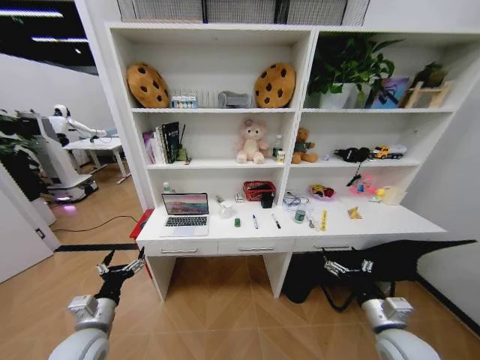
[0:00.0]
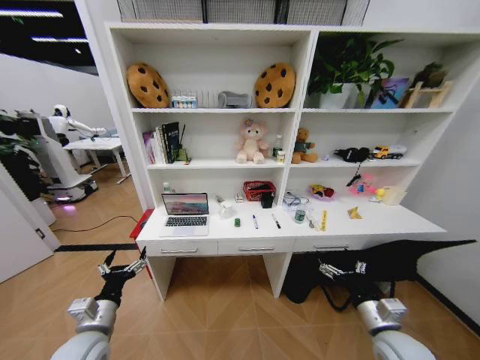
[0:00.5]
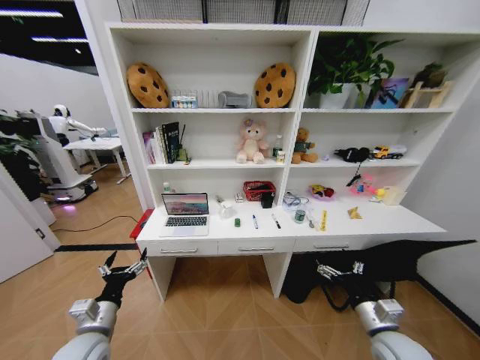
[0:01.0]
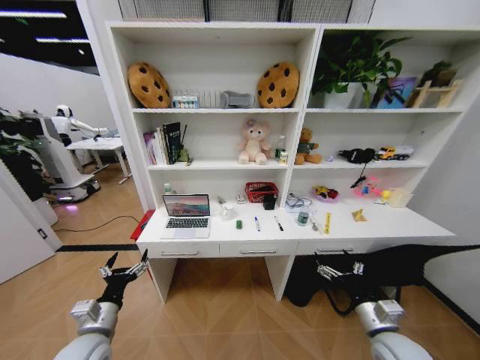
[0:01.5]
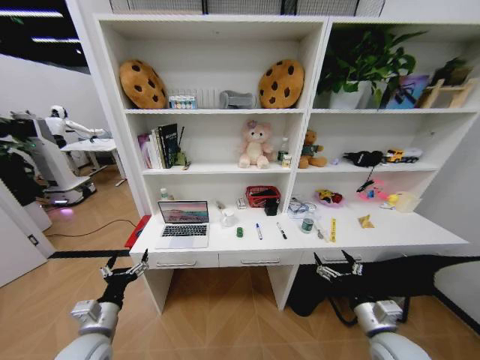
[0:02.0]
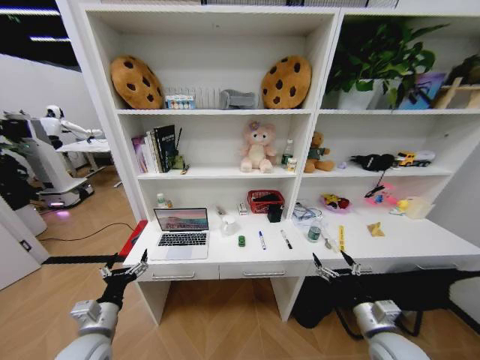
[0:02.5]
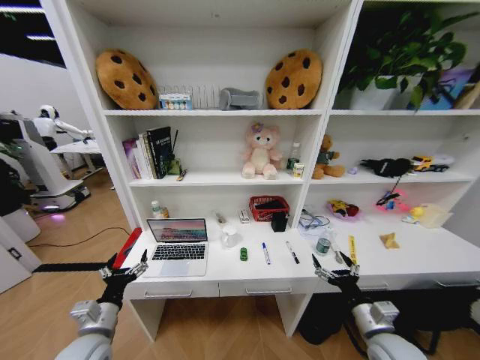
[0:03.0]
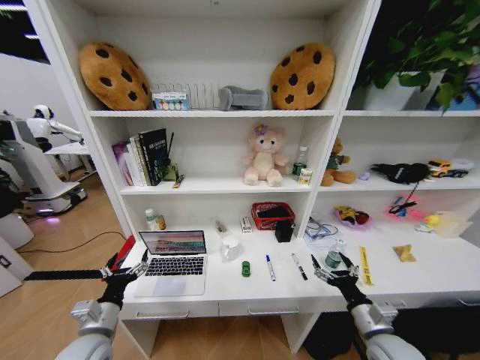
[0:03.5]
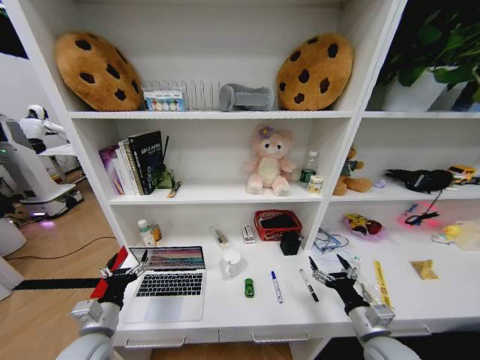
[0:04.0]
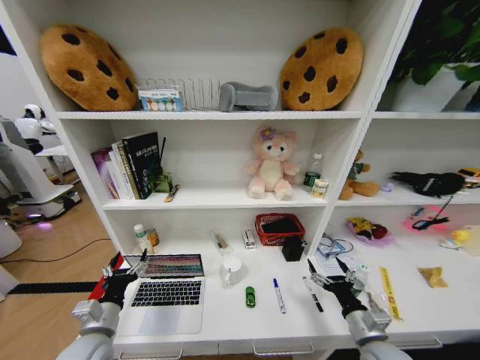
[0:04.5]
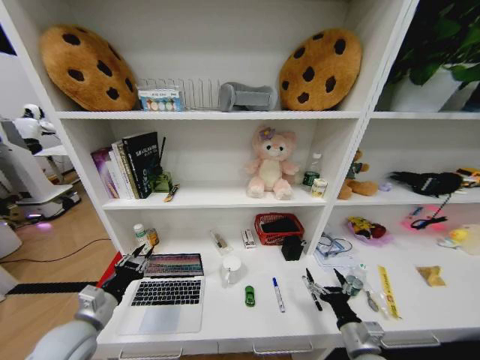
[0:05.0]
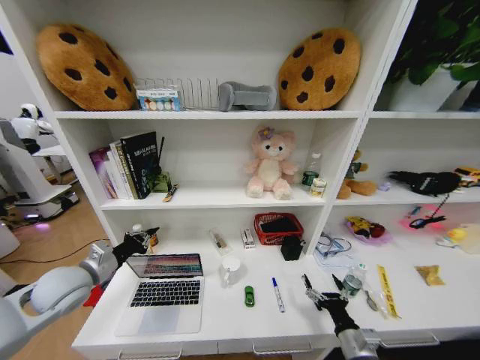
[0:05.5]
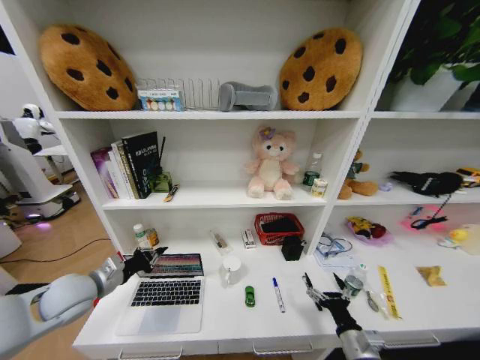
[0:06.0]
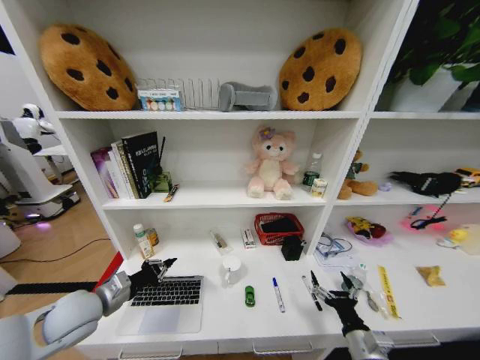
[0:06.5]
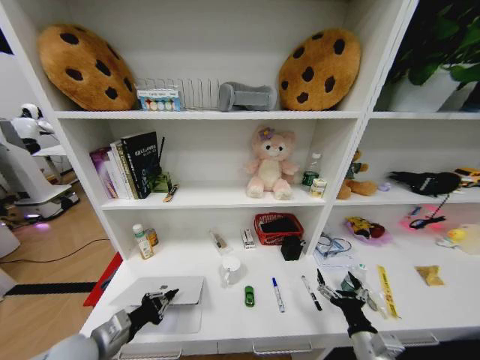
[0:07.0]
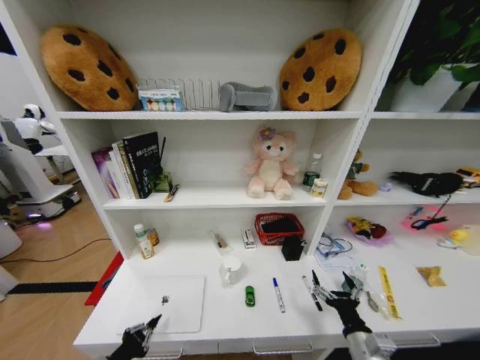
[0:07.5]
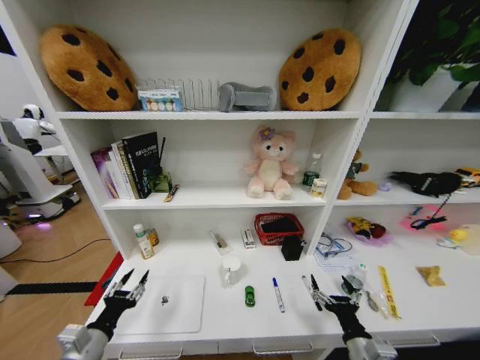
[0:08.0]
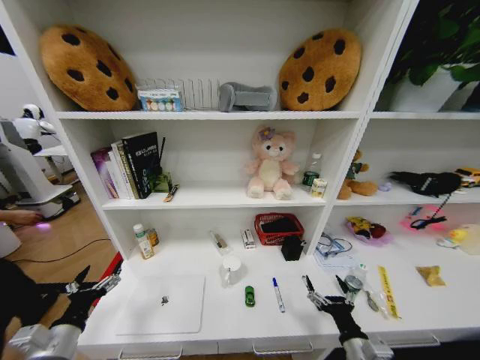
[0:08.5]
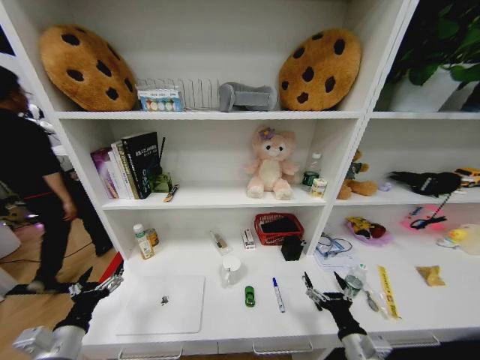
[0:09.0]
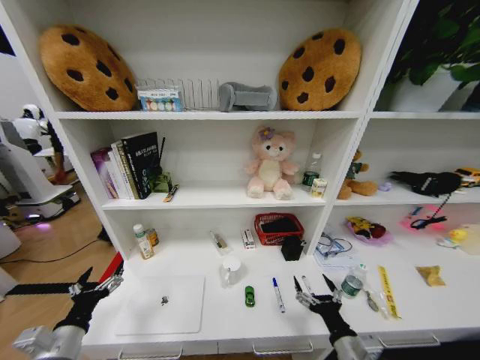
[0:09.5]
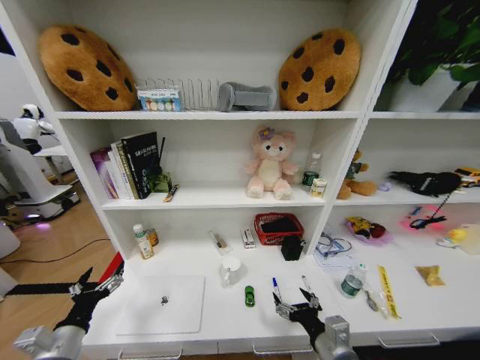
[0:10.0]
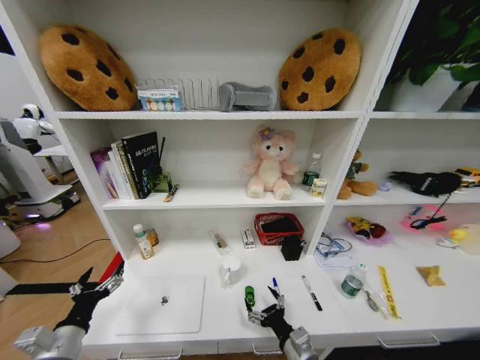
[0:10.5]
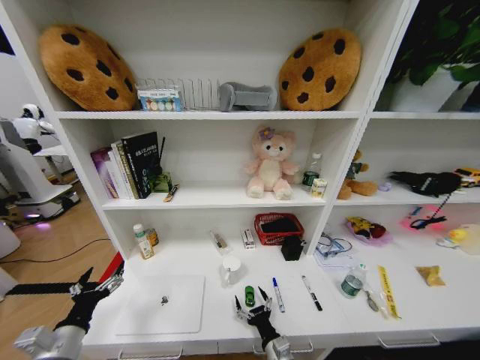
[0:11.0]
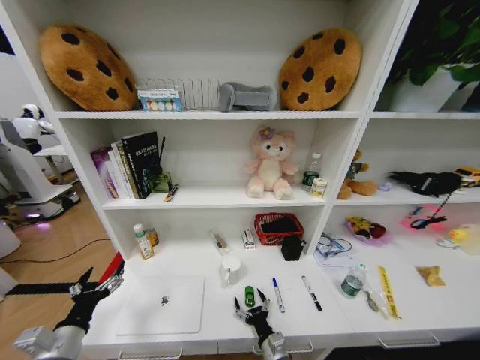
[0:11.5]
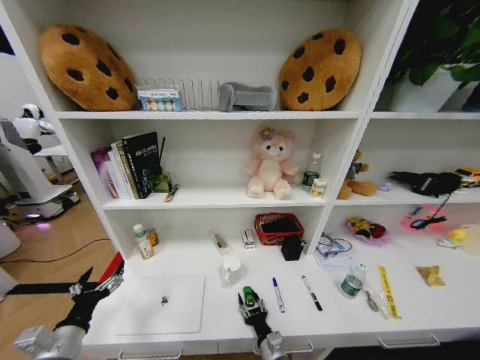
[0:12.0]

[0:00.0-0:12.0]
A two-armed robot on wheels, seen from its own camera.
Task of the whole recording: Organize the objects on the table.
4.0 to 6.0 s: The right gripper ends up about 5 cm from where it was. Meanwhile the left gripper heads forward, upward and to the left, covering approximately 15 cm, and closes its fingers.
6.0 to 8.0 s: The left gripper shifts roughly 15 cm backward and downward, and opens its fingers.
8.0 to 10.0 s: The left gripper opens. The right gripper travels to the left and upward by approximately 10 cm.
10.0 to 12.0 s: The right gripper shifts about 20 cm downward and to the left, and closes up.

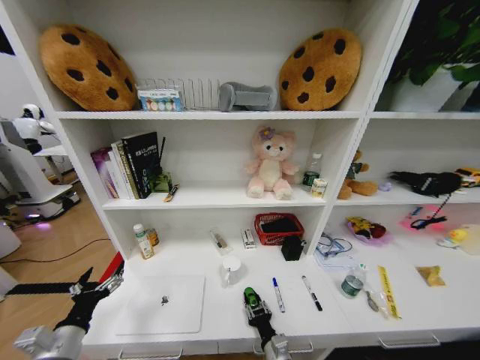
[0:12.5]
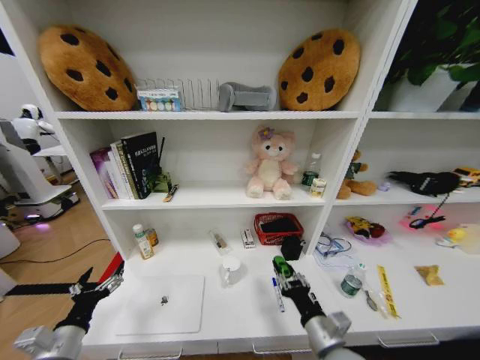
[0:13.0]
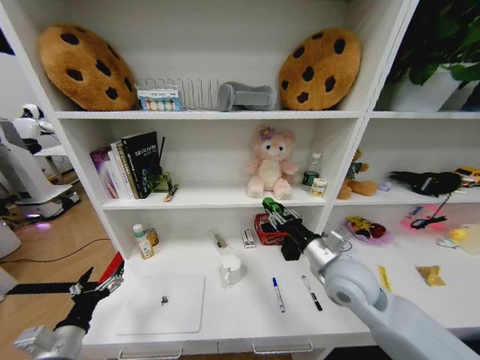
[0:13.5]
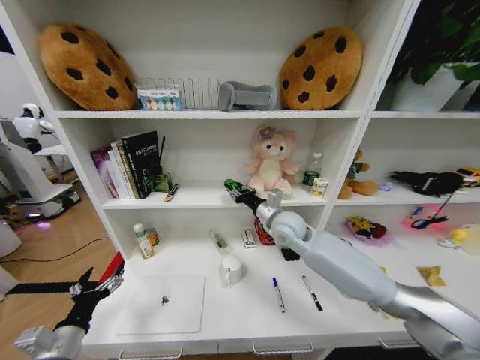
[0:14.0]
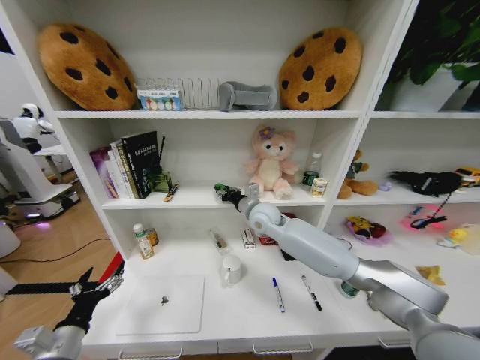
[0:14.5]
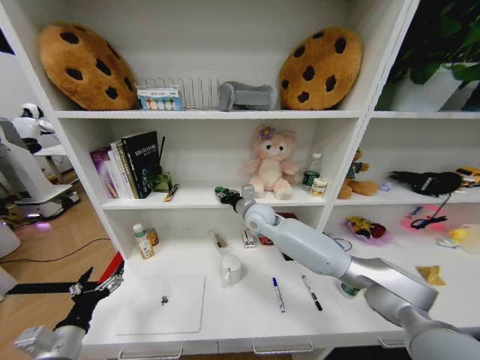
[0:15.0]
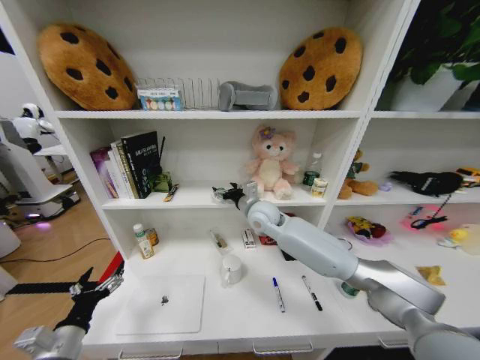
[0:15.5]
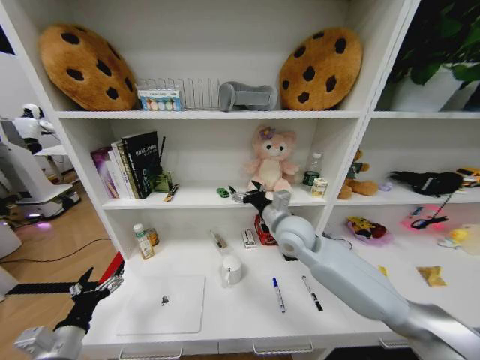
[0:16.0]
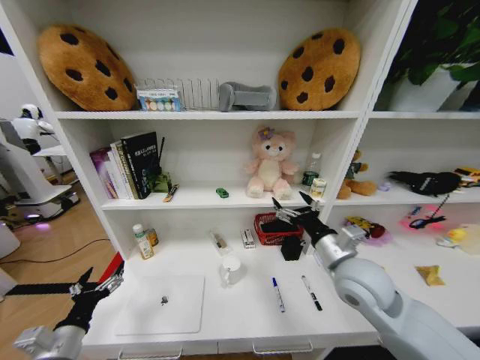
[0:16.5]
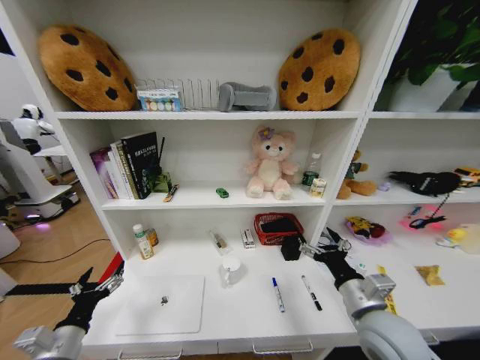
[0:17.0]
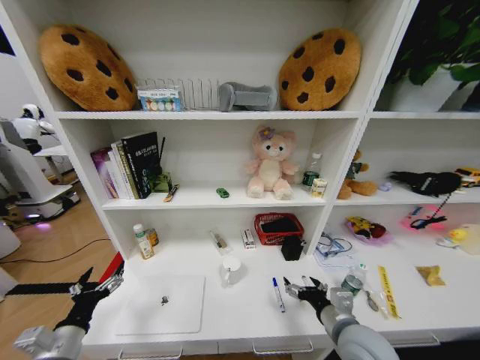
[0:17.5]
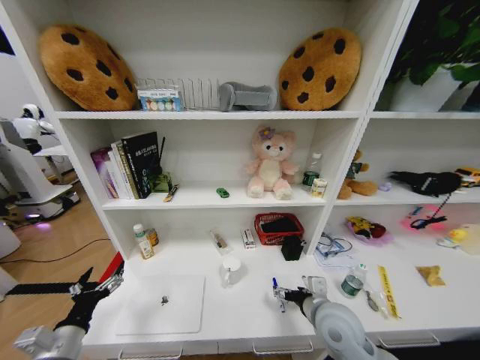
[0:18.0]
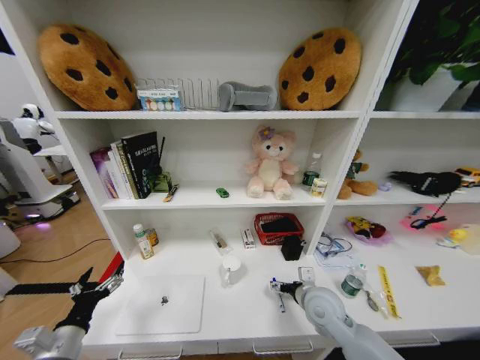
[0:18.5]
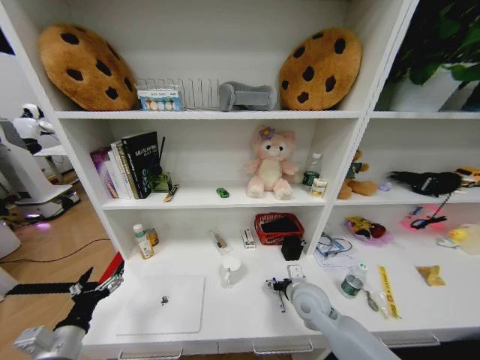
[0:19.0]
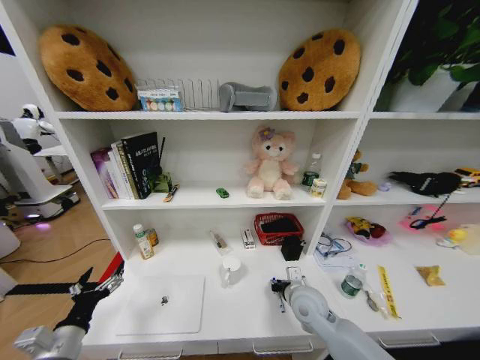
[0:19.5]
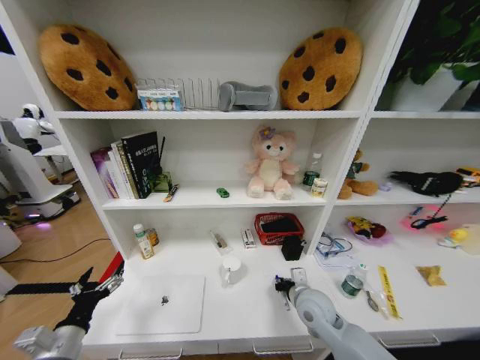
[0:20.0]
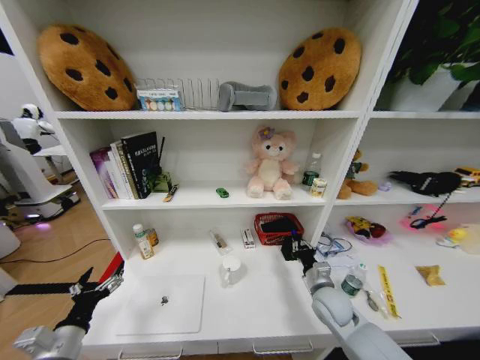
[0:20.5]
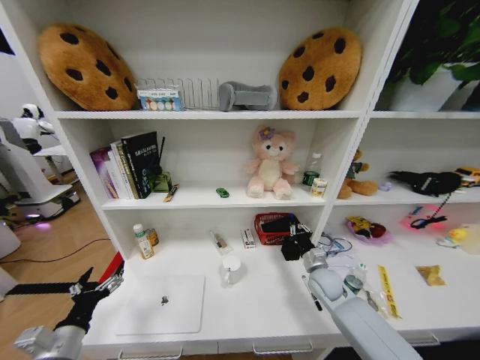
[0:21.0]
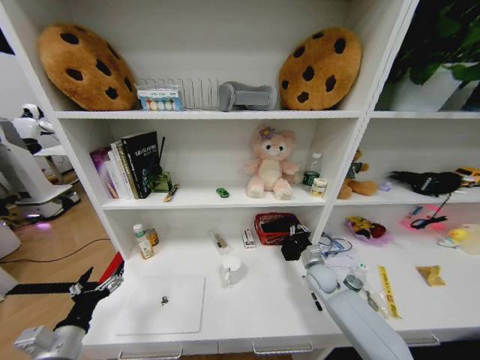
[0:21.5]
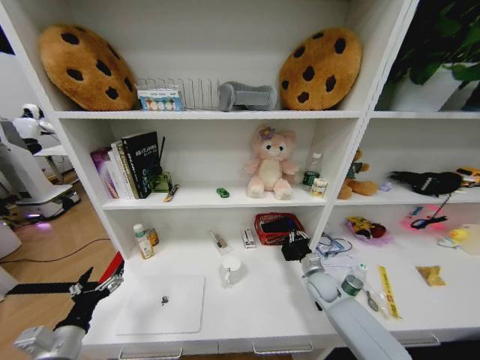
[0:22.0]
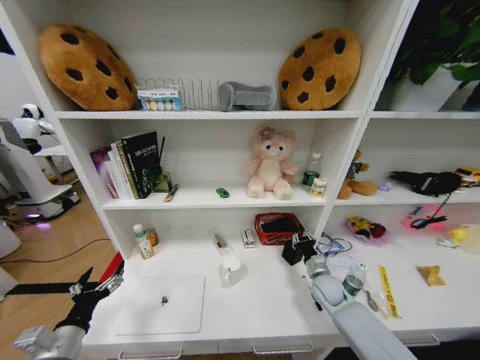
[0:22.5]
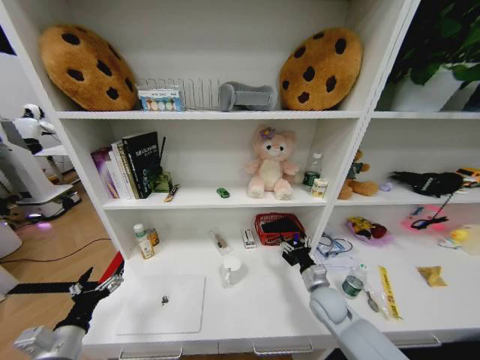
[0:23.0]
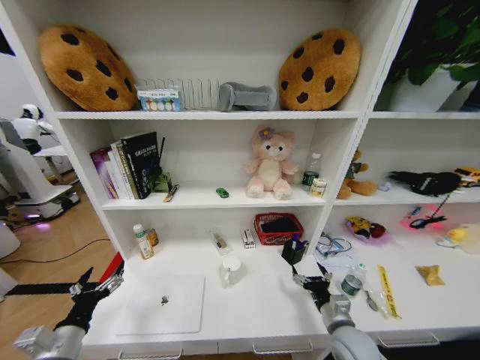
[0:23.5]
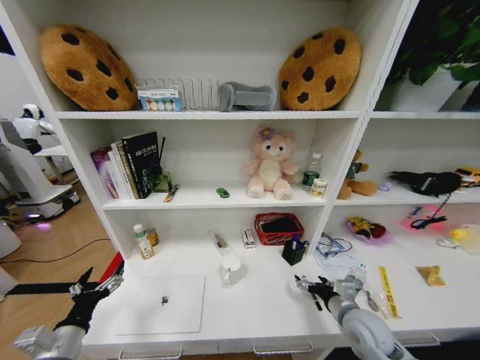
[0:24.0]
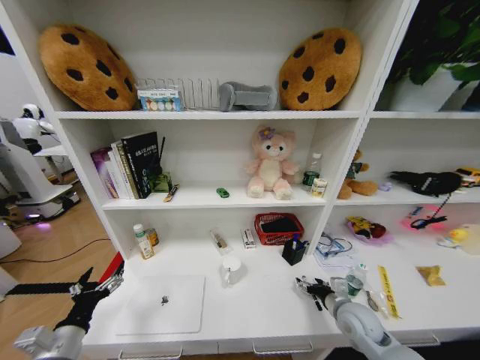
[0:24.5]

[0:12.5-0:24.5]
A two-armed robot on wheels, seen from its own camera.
Task of the whole recording: Organize the objects on the table.
12.5 to 14.5 s: The right gripper is displaced forward and upward by about 40 cm.
14.5 to 16.5 s: The right gripper shifts some 25 cm backward and to the right, and opens up.
16.5 to 18.5 s: The right gripper heads downward, covering some 15 cm.
18.5 to 20.5 s: The right gripper changes place by some 5 cm, and closes up.
20.5 to 22.5 s: The right gripper heads forward and downward, covering approximately 10 cm.
22.5 to 24.5 s: The right gripper heads backward, covering approximately 10 cm, and opens up.

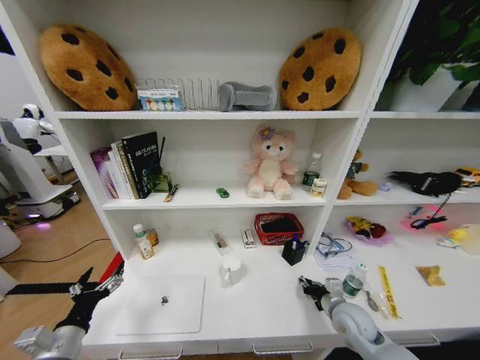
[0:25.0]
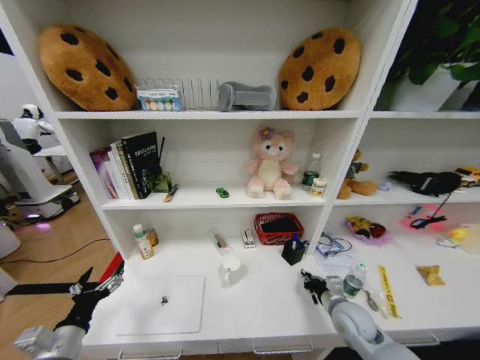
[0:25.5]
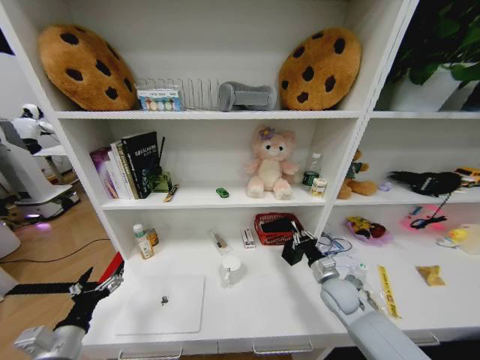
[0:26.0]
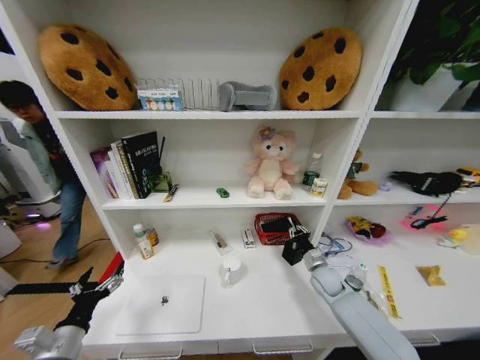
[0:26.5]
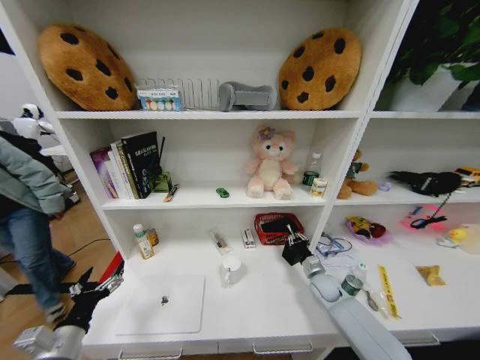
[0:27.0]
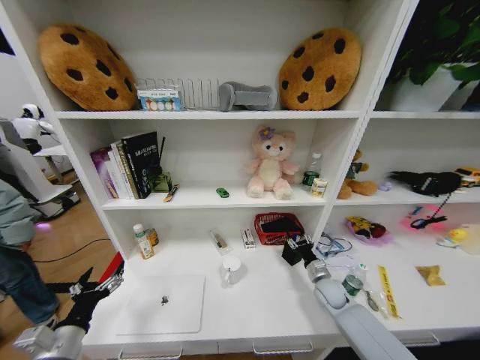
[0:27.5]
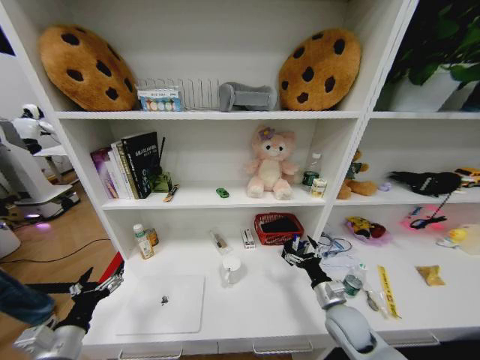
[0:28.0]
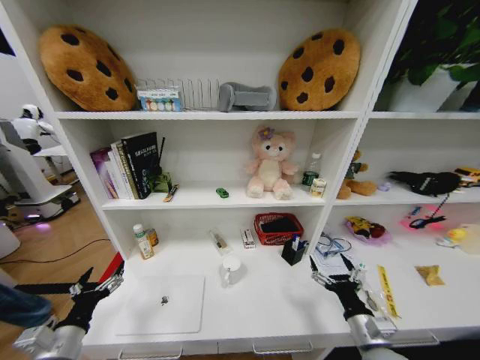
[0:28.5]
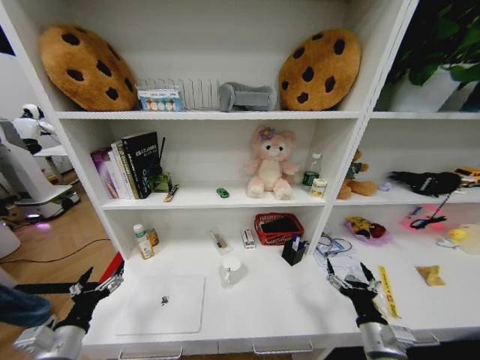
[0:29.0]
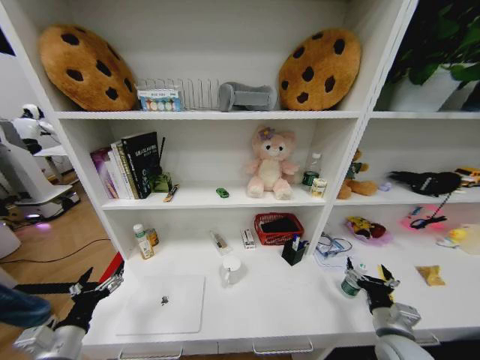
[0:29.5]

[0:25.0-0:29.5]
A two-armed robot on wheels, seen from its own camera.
Task of the whole recording: Organize the objects on the table.
25.0 to 27.0 s: The right gripper moves forward and downward, approximately 15 cm.
27.0 to 29.5 s: The right gripper travels backward by about 20 cm, and opens up.
